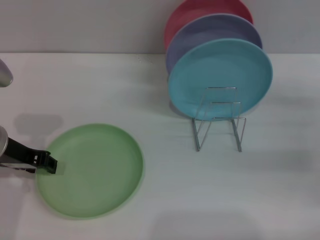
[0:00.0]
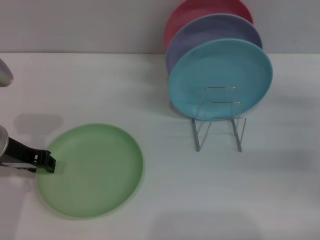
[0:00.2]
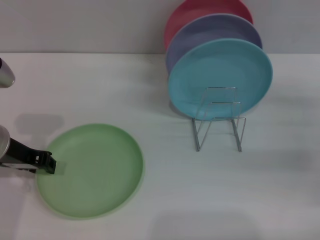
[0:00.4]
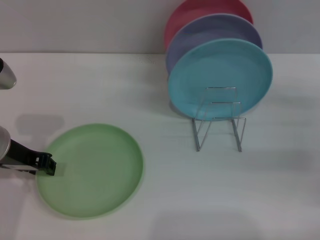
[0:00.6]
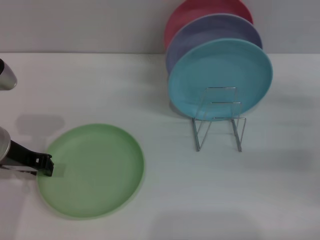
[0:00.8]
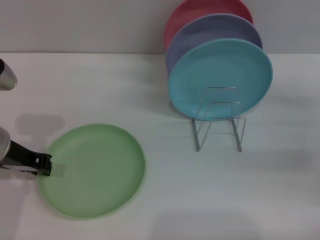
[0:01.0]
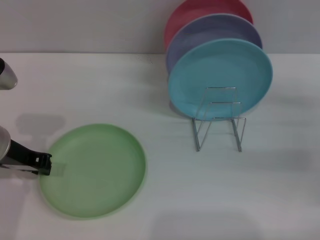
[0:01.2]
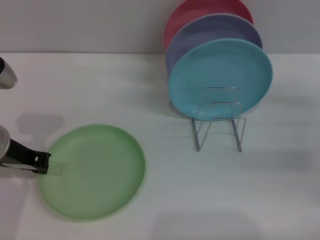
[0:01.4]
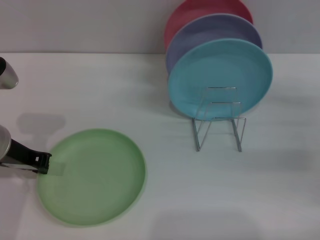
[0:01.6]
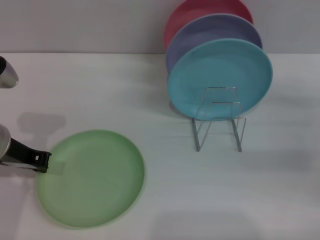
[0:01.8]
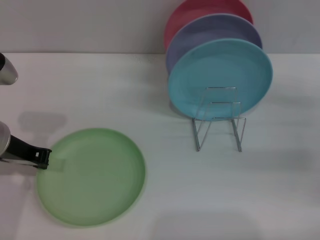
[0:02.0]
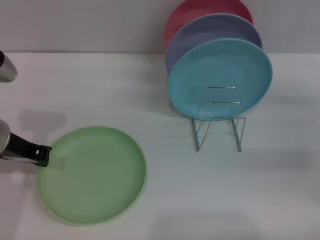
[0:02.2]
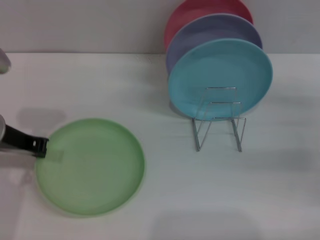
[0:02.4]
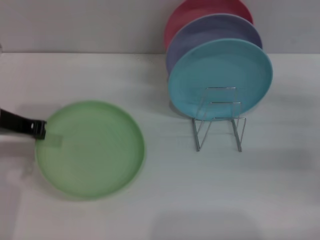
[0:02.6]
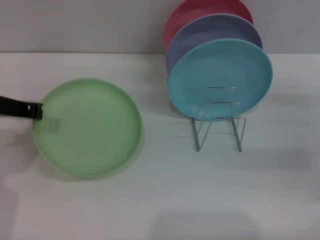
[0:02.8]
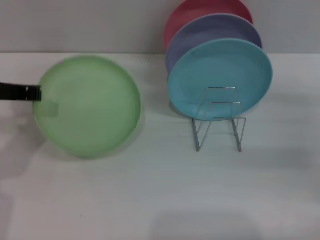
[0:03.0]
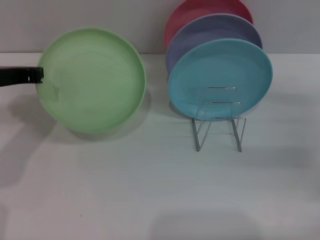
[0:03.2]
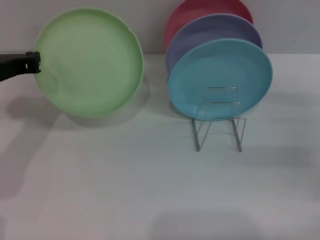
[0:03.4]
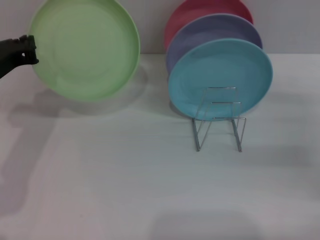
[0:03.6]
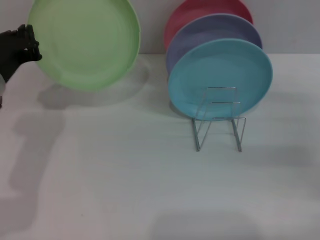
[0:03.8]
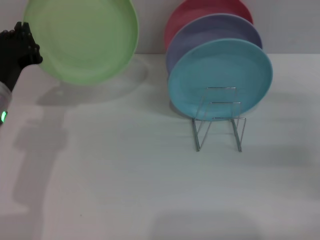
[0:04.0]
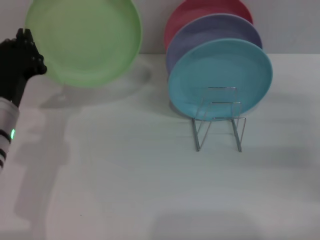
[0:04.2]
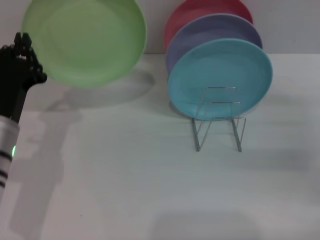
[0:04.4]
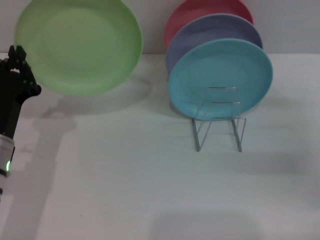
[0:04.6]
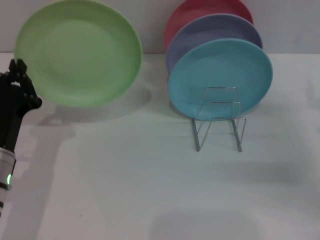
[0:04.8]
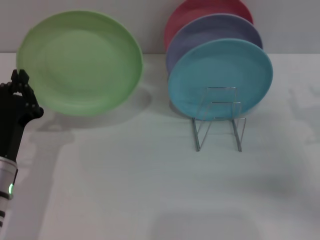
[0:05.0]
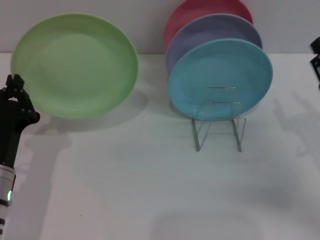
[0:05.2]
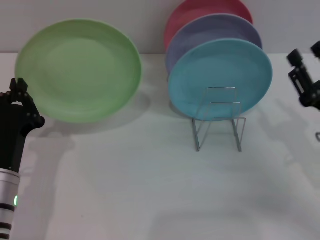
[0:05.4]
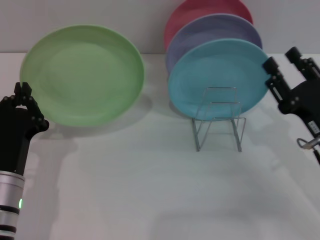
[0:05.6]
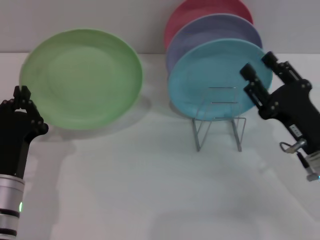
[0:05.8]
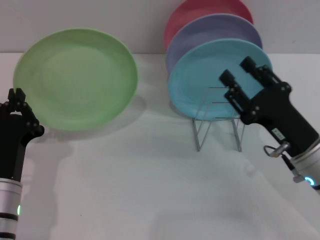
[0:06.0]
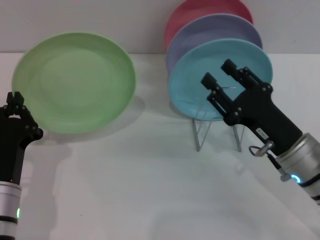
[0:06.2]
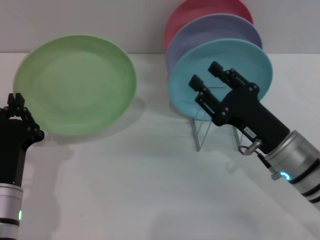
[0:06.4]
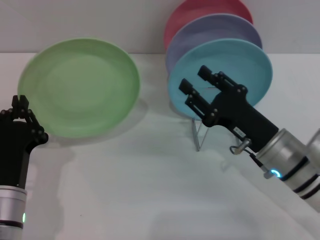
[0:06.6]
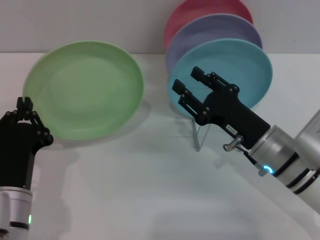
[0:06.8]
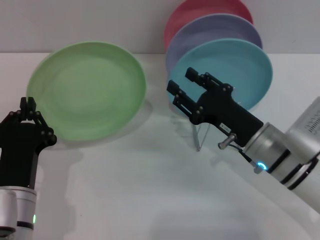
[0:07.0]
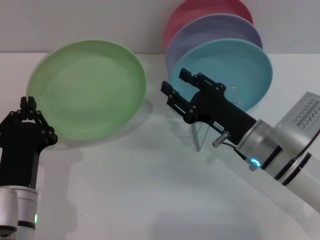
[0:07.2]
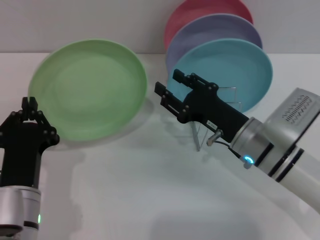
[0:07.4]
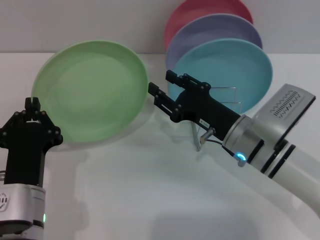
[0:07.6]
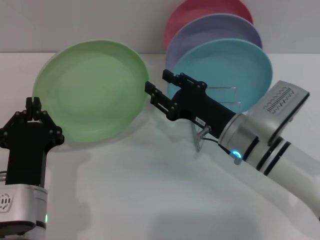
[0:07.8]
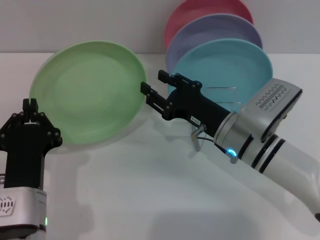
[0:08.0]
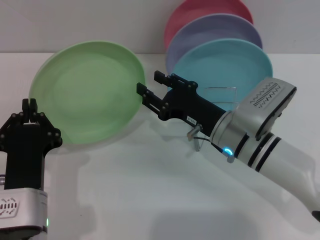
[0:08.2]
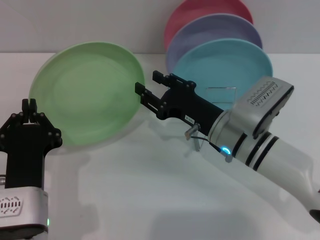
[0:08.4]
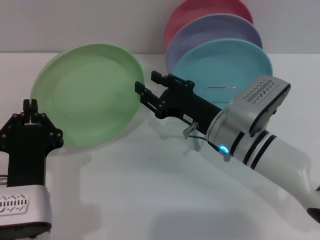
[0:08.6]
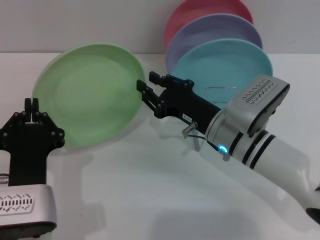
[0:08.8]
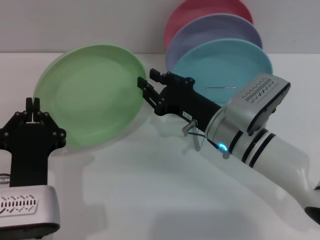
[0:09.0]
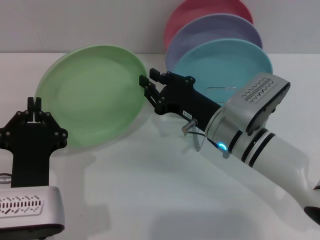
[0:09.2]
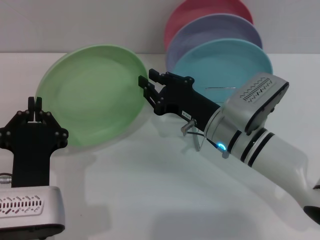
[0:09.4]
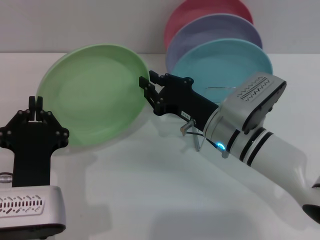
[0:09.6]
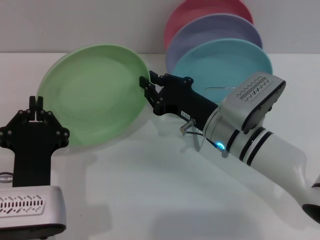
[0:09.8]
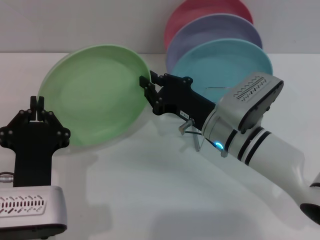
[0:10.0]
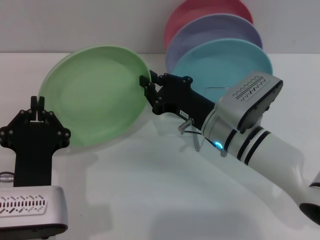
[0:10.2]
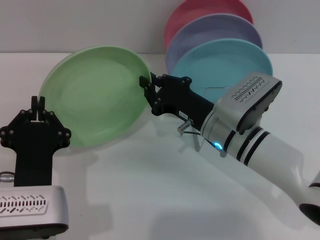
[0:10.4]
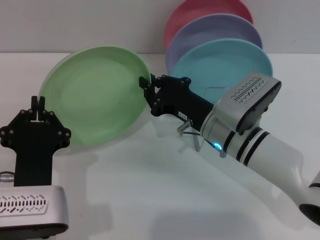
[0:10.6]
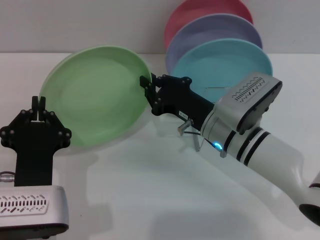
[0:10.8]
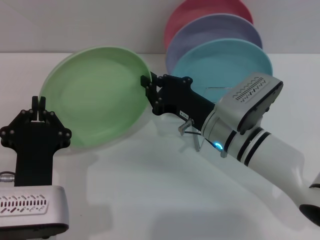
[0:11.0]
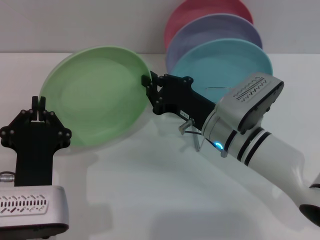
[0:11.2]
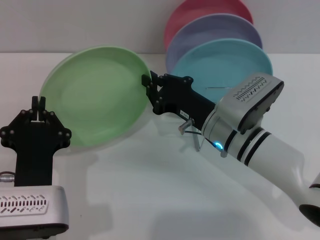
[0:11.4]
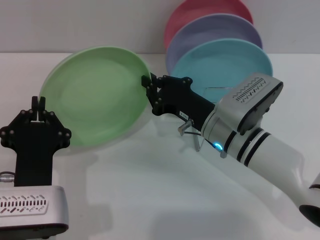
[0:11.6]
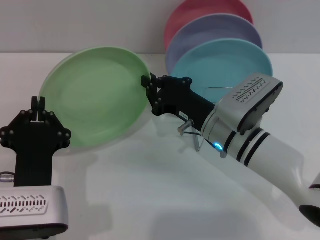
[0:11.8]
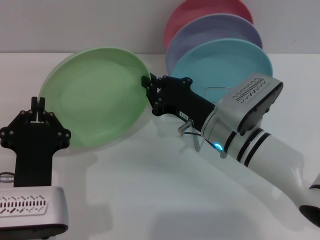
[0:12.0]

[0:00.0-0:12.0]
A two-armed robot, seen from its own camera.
Task of the whole recording: Grip the plate with one hand, pass it to the other, then set it on the shelf.
Step, 0:00.0 to 0:02.8: Pick up the plate with the left gripper.
0:00.0 to 0:01.6: The left gripper closes its fingers.
0:01.6 to 0:03.0: The left gripper changes place by approximately 5 cm.
0:03.0 to 0:04.4: The left gripper goes roughly 10 cm downward and backward.
0:04.4 to 0:06.0: The right gripper travels to the left and backward by approximately 15 cm. Meanwhile the left gripper goes some 5 cm backward.
0:06.0 to 0:07.6: The right gripper shifts some 10 cm to the left and forward.
0:07.6 to 0:09.0: The grippers stay close to where they were, moving slightly.
0:09.0 to 0:10.4: The right gripper closes up.
0:10.4 to 0:12.0: The two grippers keep their place.

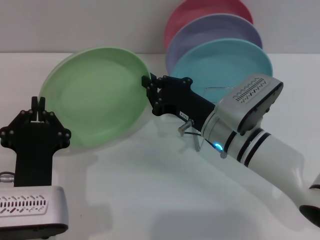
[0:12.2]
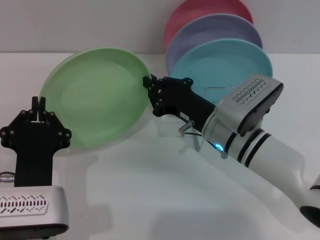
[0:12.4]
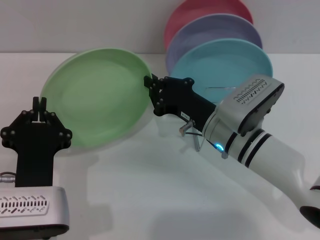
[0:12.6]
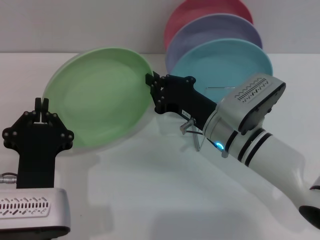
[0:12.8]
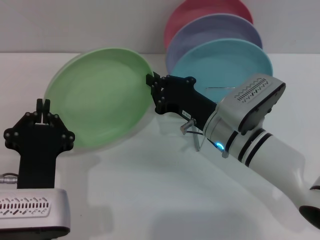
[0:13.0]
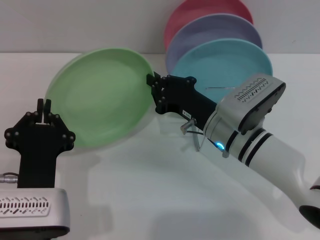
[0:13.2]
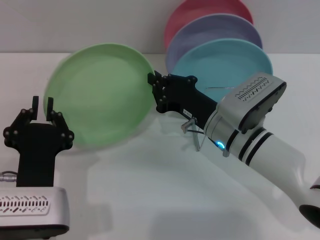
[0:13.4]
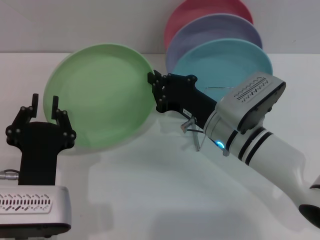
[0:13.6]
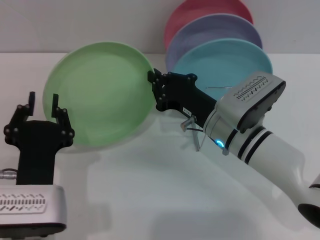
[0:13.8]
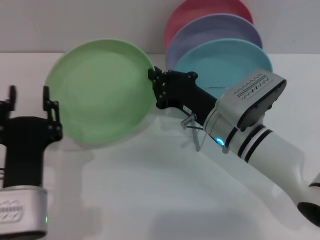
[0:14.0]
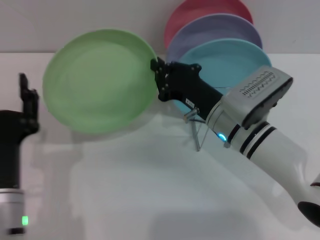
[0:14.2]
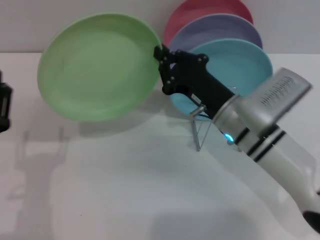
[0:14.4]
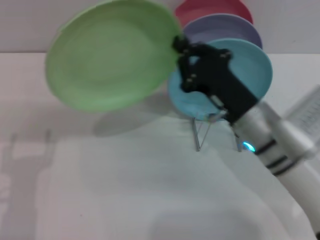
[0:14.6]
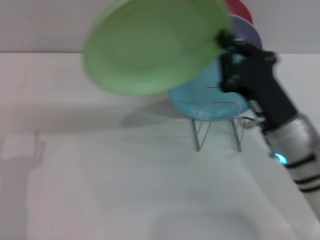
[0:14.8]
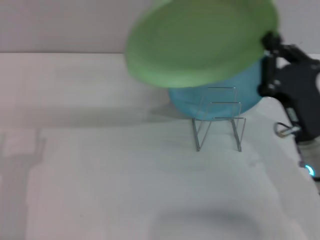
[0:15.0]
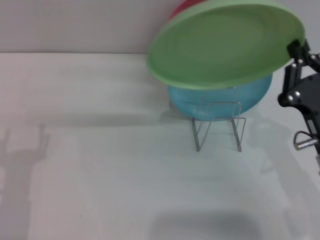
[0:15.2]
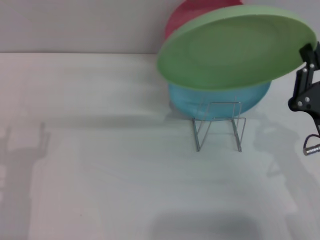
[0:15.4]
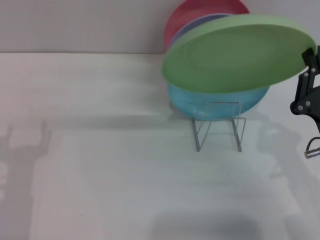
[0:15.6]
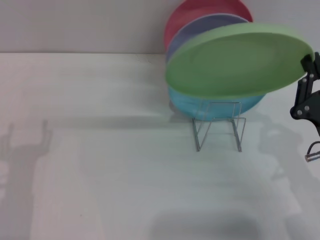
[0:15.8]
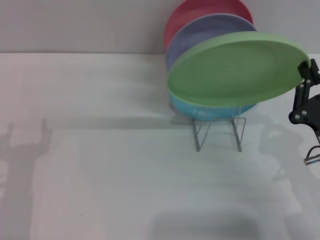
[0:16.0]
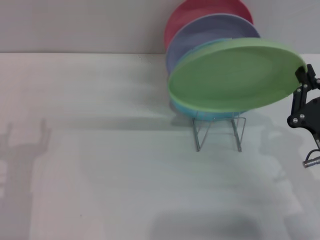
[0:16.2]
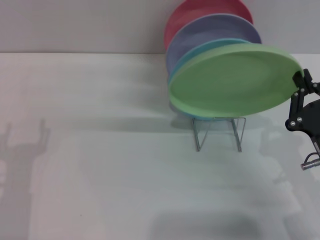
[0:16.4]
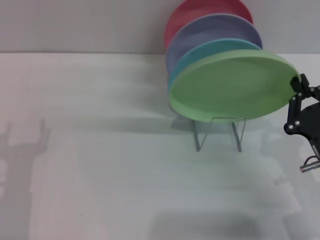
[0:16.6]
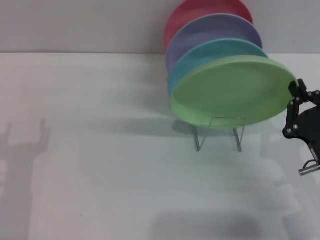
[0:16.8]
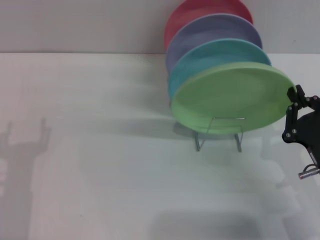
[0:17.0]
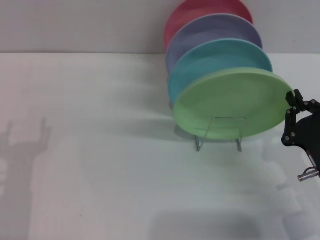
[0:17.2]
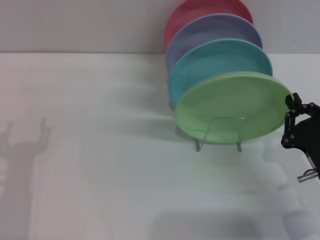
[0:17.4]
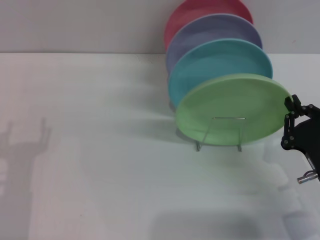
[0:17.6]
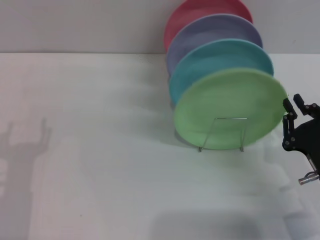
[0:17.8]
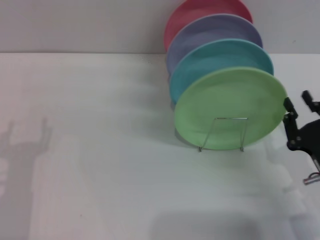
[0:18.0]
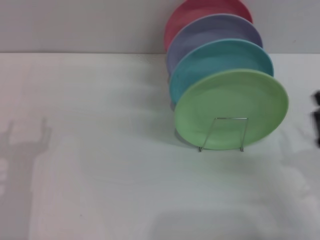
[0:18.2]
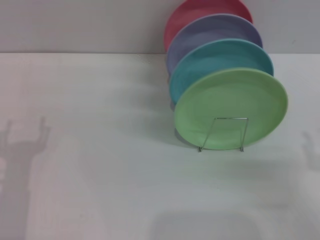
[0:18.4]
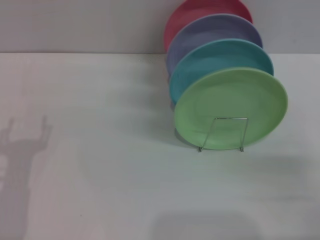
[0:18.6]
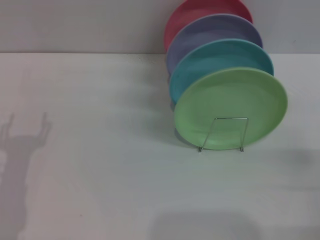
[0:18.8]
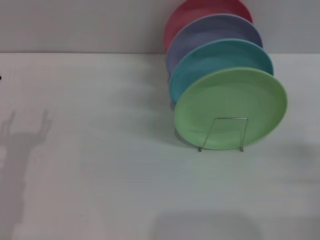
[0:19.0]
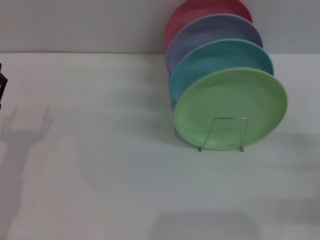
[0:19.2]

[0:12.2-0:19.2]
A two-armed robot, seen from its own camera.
Task of the whole recording: Grip the plate with one hand, pass it to the other, then set it on the shelf.
Step, 0:12.2 to 0:14.2: Pass the plate from the left gripper to the right gripper.
Step, 0:14.4 to 0:18.0: Place the plate on the shelf with the right gripper.
0:12.2 to 0:13.6: The two grippers keep their place.
0:13.6 to 0:15.0: The right gripper shifts roughly 10 cm to the right and backward; the left gripper goes approximately 10 cm to the left, and opens its fingers.
0:15.0 to 0:16.4: The right gripper ends up some 5 cm from where it was.
0:16.4 to 0:17.8: The grippers move only a little.
0:17.8 to 0:19.2: The right gripper is displaced to the right by roughly 10 cm, and opens. The left gripper shifts by approximately 5 cm.
